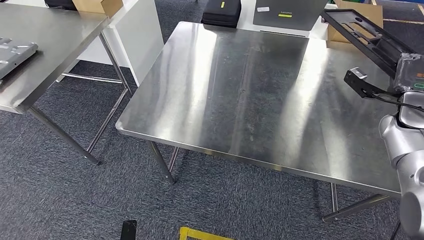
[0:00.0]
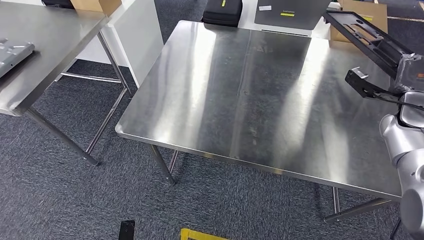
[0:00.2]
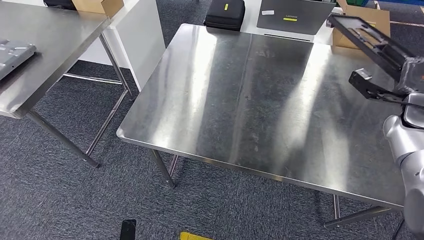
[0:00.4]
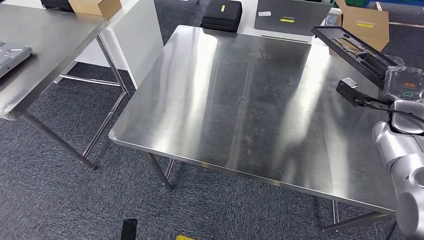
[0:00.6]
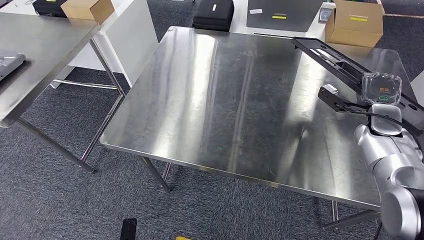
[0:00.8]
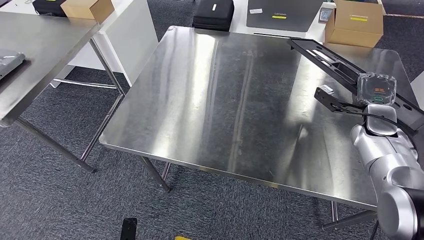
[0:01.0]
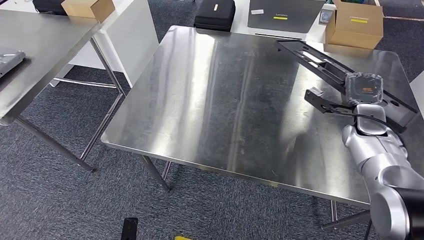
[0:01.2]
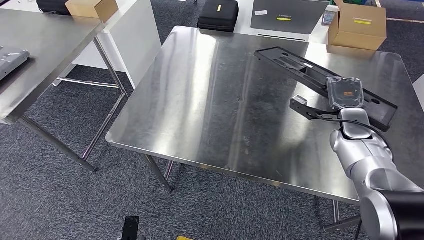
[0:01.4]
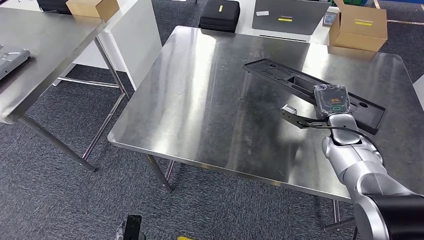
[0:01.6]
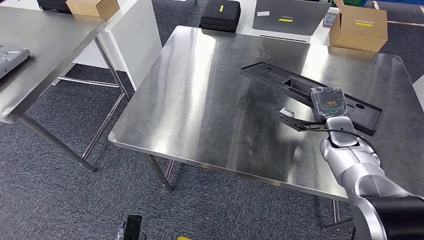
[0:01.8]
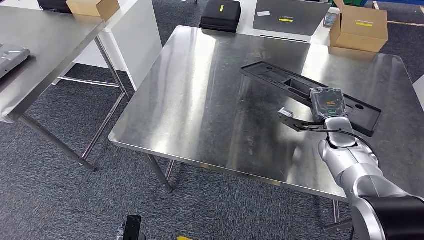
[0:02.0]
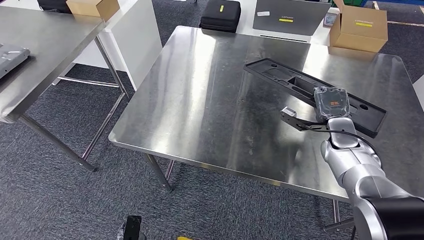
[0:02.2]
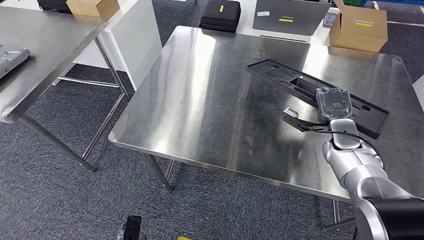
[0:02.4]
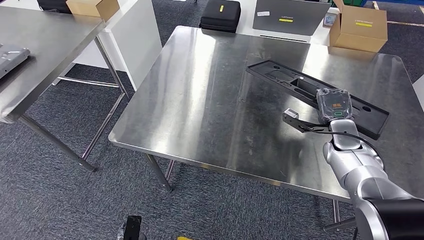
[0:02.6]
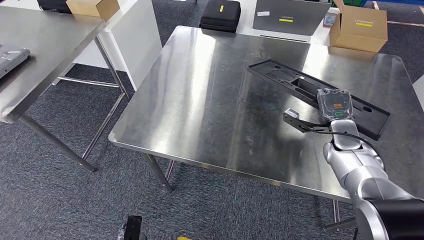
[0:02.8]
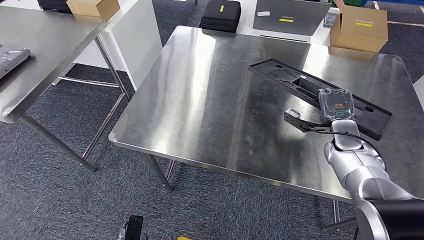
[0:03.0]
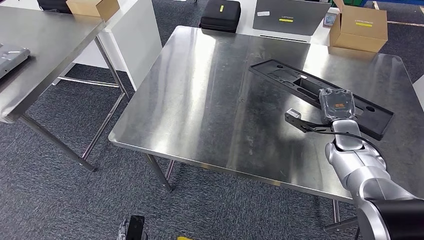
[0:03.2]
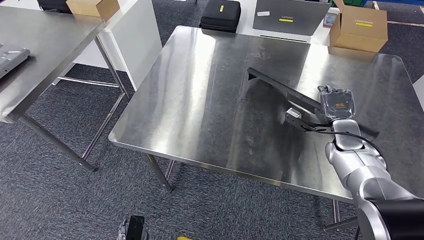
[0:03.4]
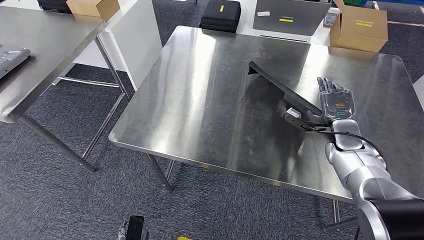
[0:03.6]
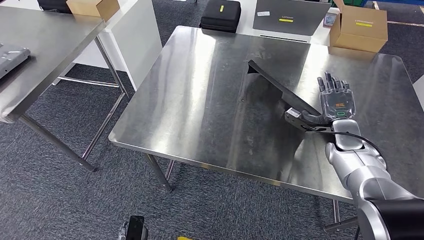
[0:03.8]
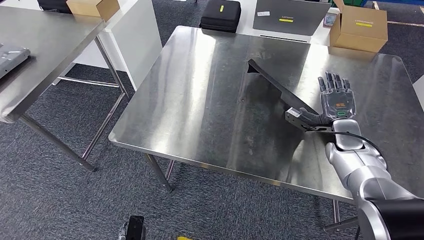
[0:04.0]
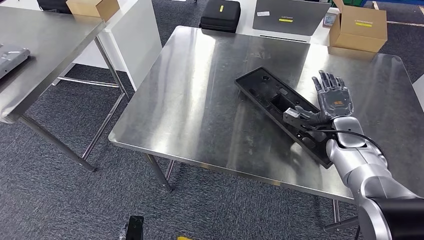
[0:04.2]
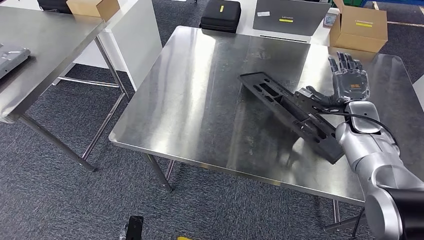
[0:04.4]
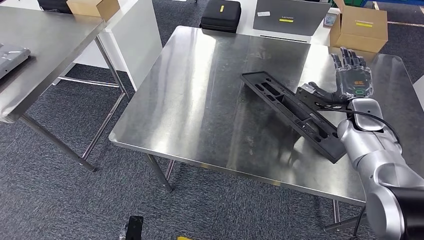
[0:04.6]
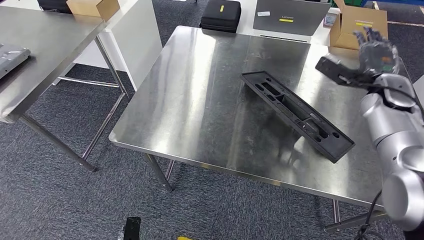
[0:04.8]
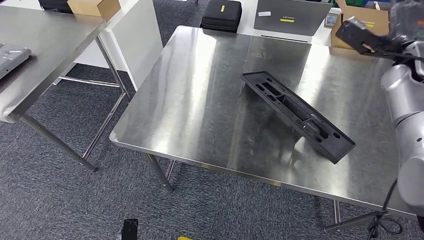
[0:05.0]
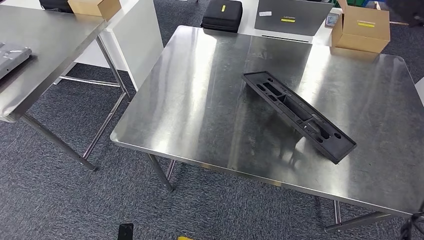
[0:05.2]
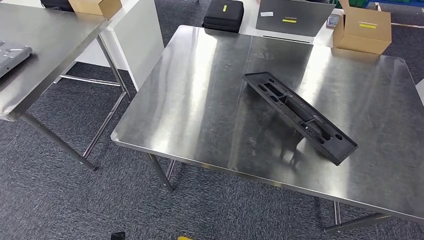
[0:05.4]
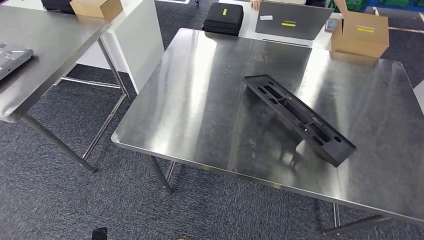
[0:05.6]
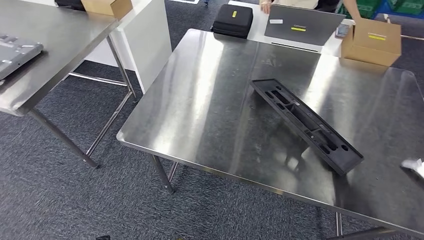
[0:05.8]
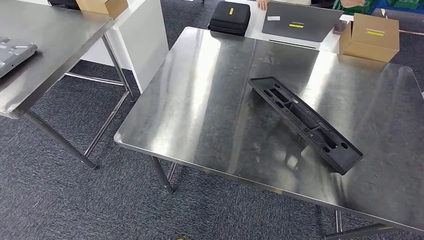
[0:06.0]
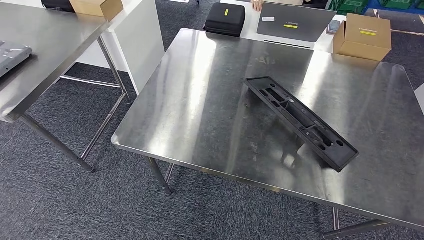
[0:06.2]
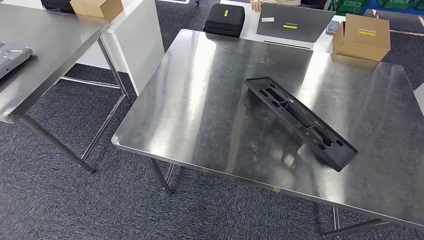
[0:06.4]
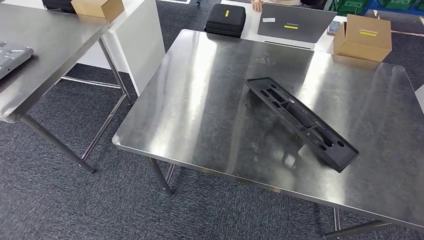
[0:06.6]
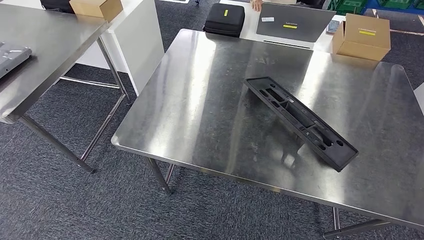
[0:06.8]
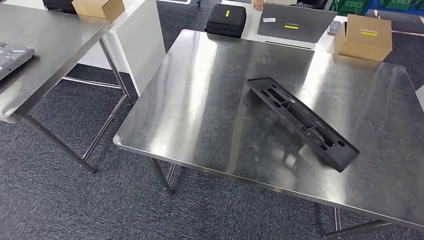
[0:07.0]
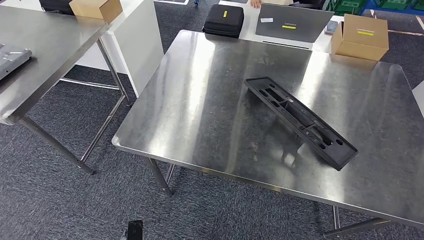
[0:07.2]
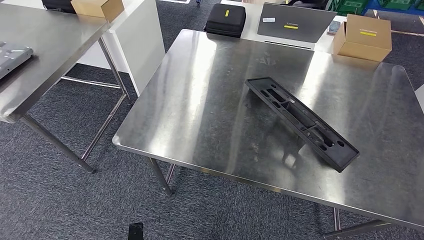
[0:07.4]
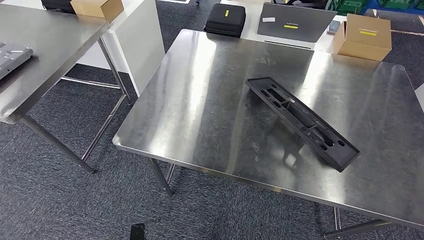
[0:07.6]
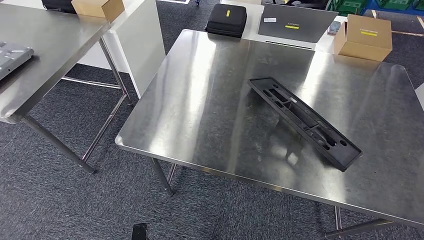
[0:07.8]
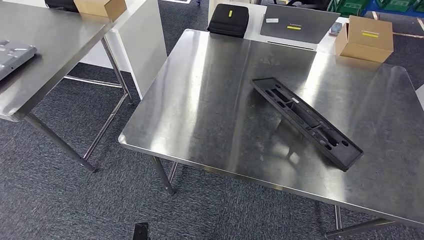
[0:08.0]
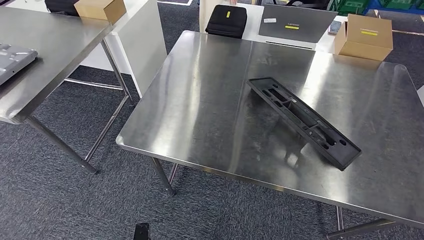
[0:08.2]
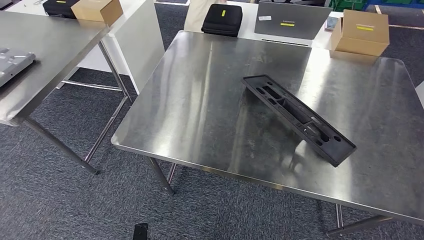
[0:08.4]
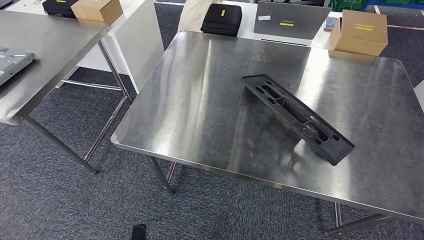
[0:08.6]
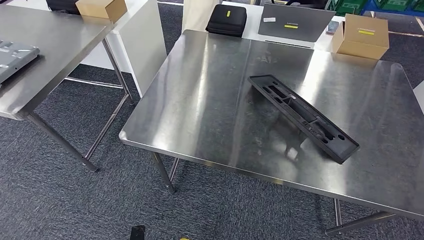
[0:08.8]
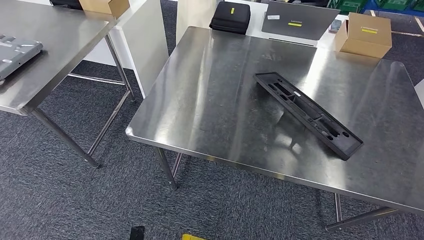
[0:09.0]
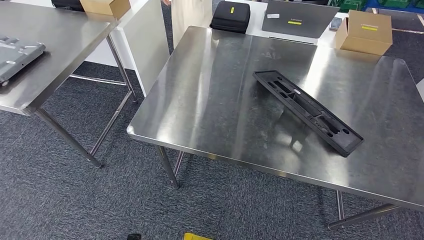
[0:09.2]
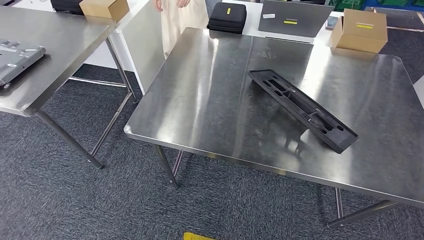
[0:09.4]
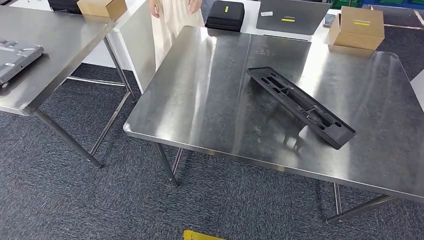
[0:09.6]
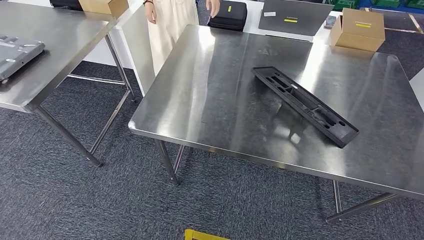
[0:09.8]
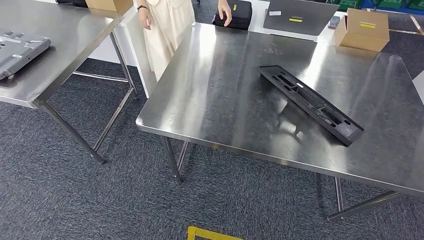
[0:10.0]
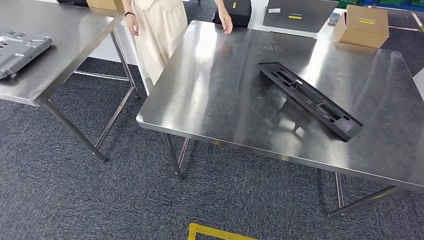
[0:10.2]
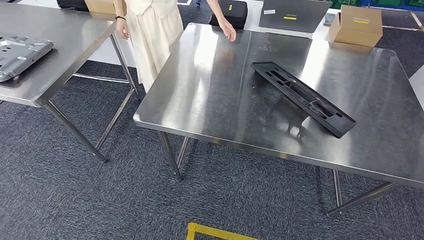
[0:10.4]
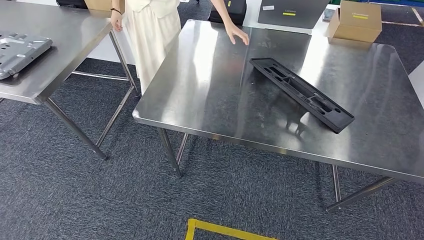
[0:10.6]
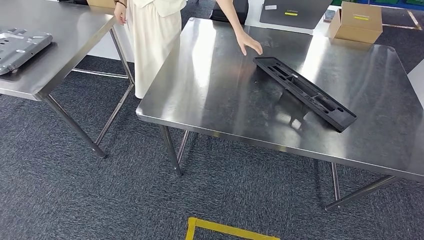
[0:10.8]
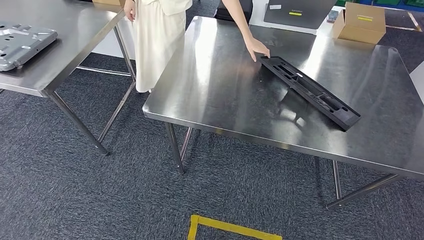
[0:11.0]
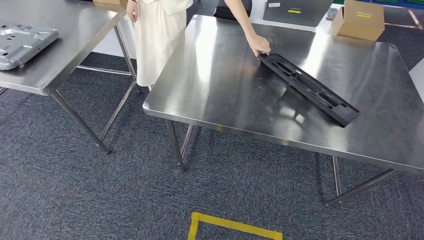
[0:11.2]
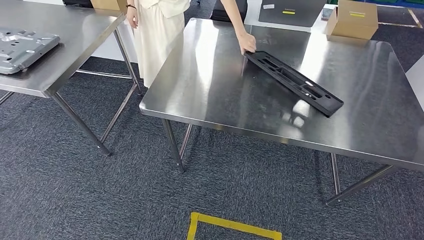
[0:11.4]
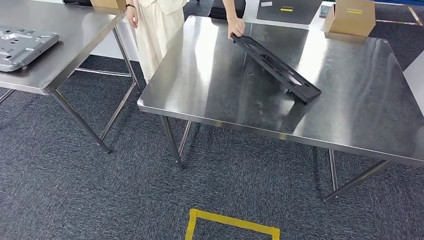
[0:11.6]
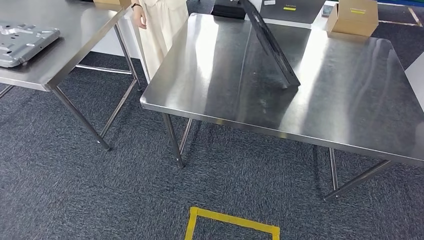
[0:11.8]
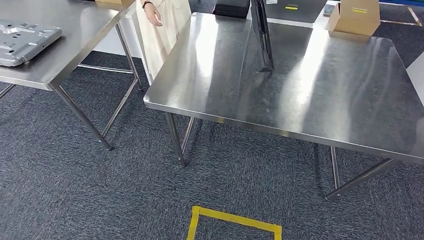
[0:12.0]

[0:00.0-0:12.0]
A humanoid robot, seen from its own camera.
Step, 0:00.0 to 0:06.8: Insert the large material into the corresponding slot on the workbench.
0:01.6 to 0:03.0: The hands move only a little.
0:03.0 to 0:04.4: The right hand travels upward by approximately 5 cm.
0:06.0 to 0:07.6: The left hand is displaced to the right and forward by roughly 10 cm. The right hand shifts about 40 cm downward and to the left.

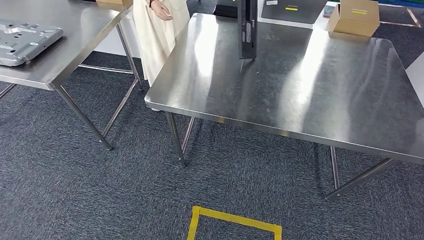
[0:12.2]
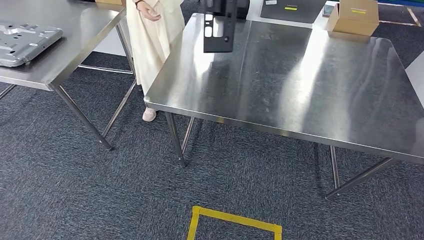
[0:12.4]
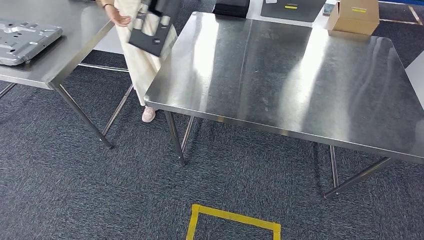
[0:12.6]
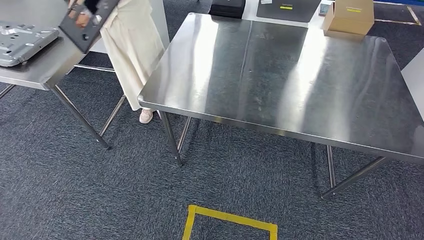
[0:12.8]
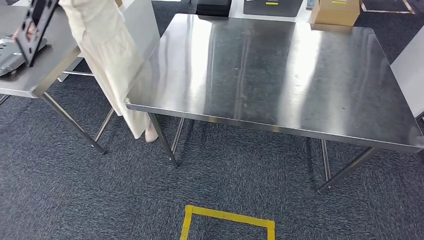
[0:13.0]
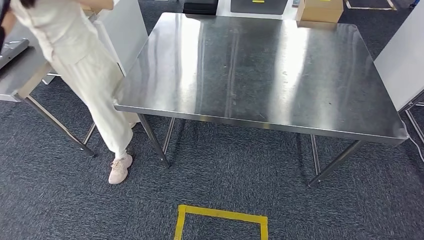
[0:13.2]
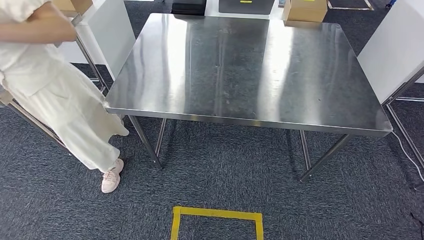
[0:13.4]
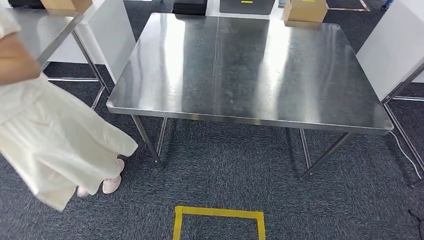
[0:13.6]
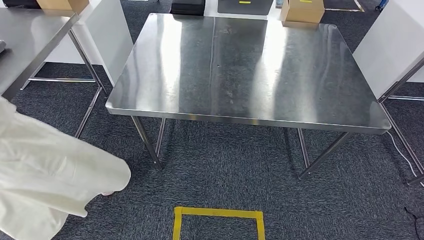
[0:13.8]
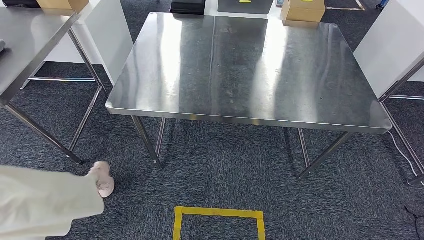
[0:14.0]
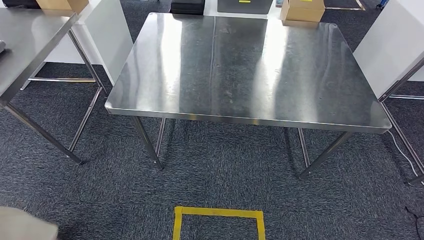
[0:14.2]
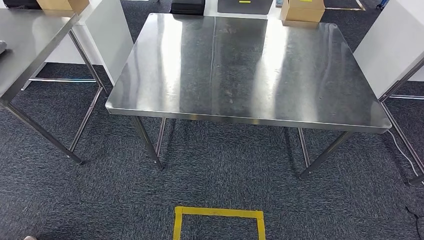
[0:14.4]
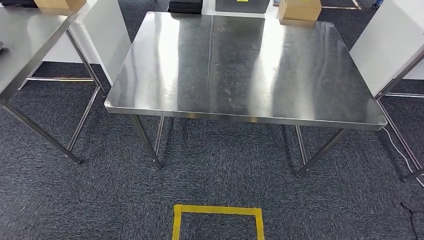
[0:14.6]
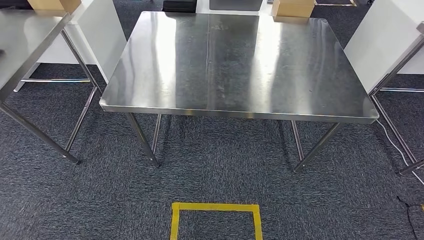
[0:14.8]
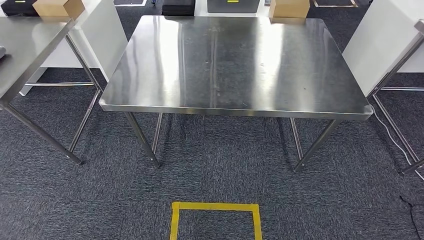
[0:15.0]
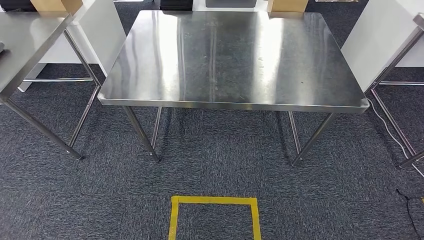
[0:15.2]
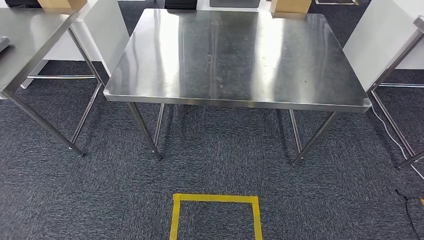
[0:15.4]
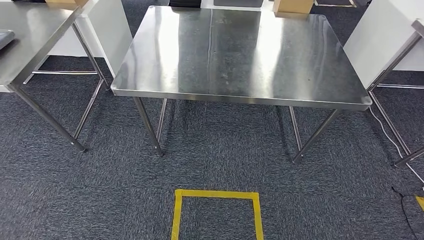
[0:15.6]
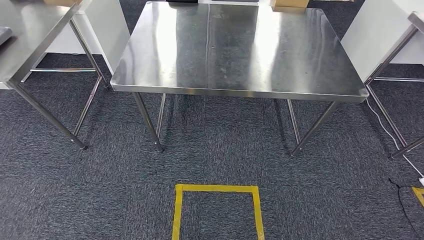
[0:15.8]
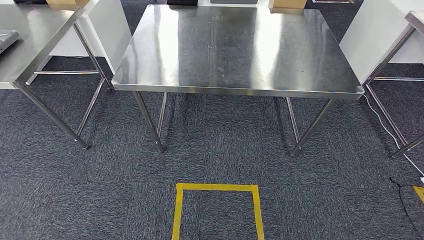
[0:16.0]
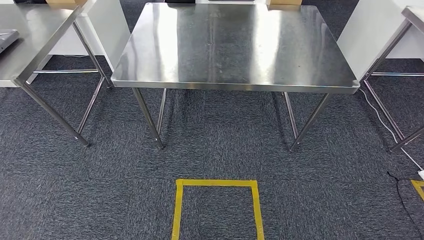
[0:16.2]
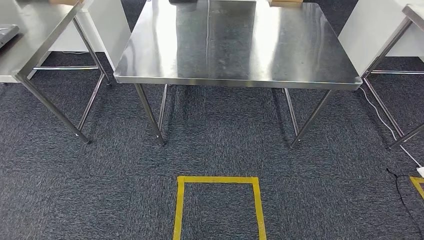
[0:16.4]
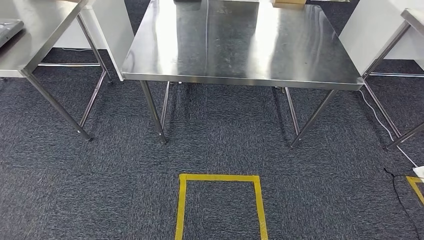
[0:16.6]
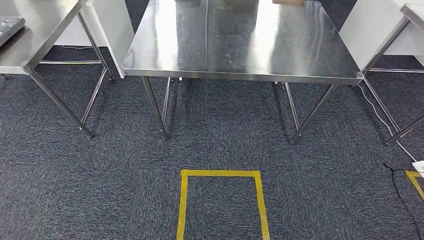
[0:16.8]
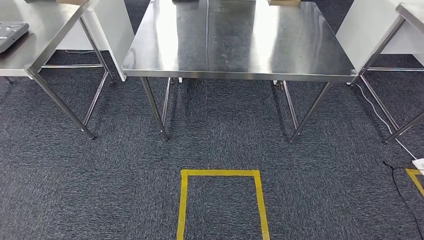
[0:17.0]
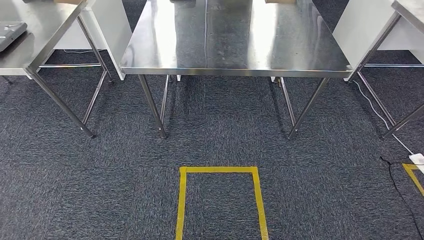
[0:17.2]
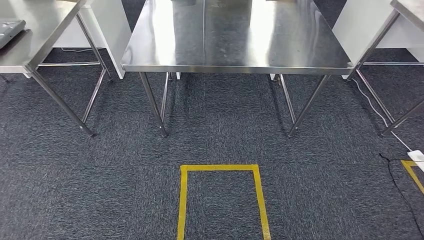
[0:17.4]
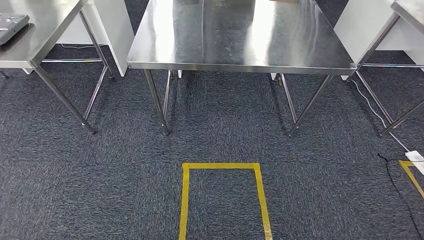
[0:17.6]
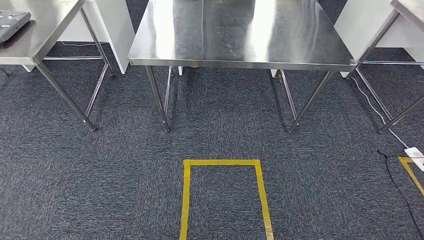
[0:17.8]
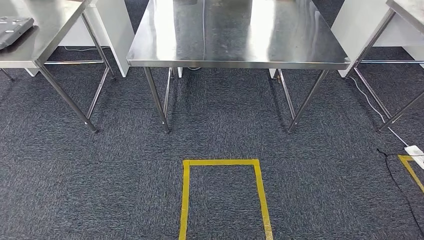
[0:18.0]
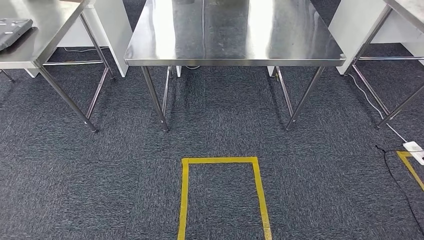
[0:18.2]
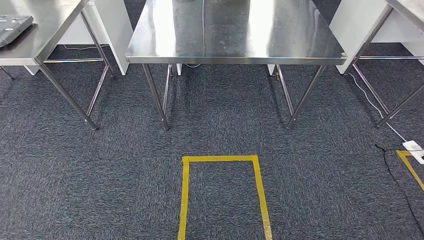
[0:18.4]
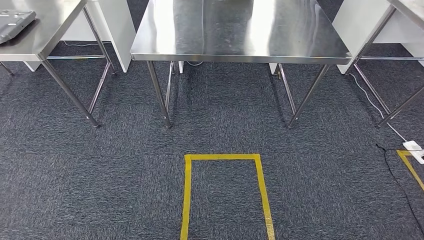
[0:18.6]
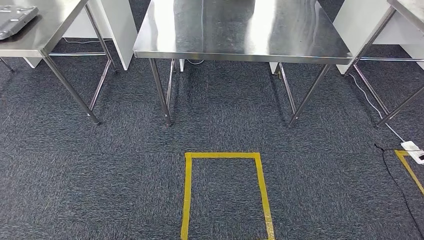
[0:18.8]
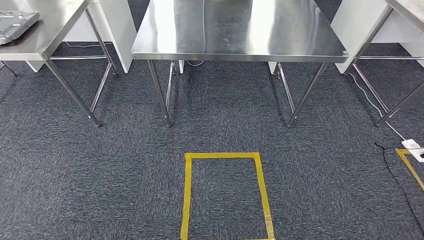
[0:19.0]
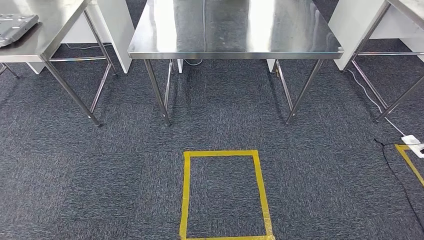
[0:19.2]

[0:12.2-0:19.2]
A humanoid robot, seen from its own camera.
0:17.8 to 0:19.2: Both hands stay put.
